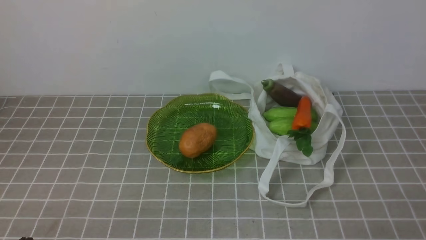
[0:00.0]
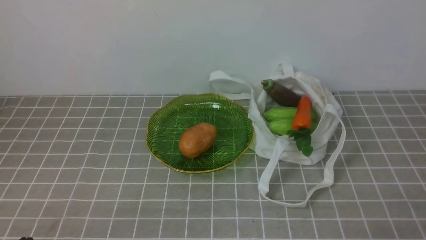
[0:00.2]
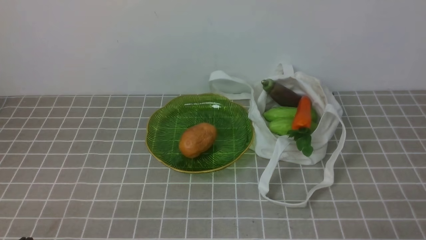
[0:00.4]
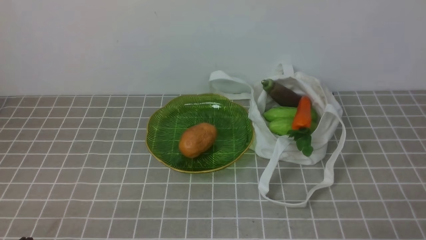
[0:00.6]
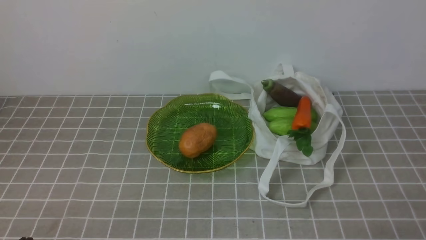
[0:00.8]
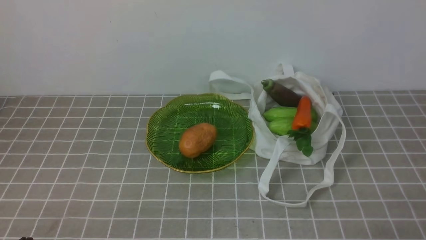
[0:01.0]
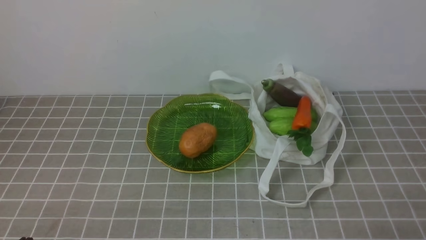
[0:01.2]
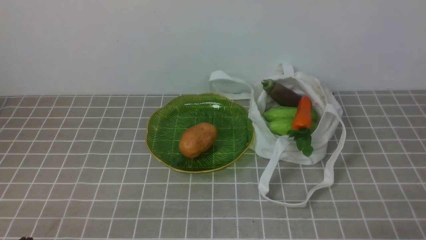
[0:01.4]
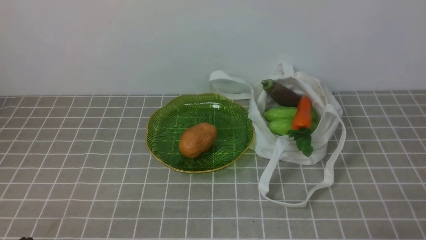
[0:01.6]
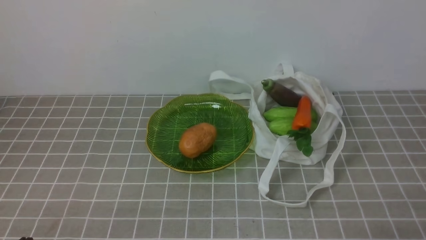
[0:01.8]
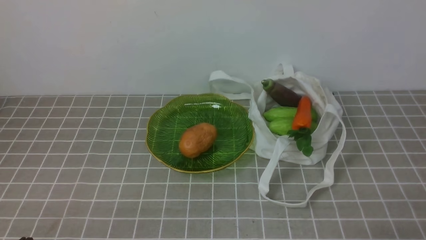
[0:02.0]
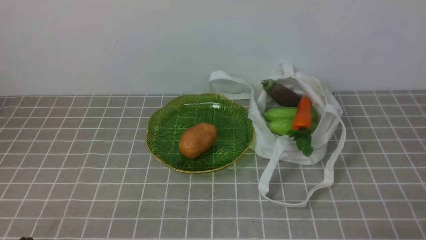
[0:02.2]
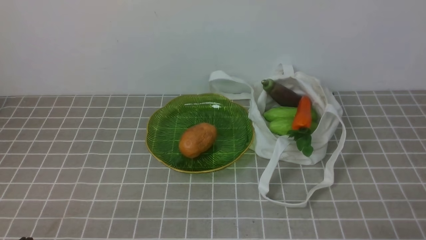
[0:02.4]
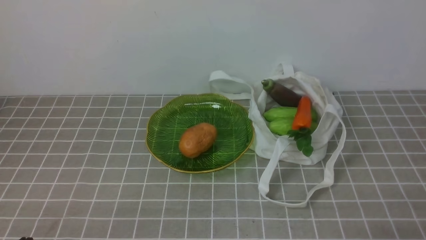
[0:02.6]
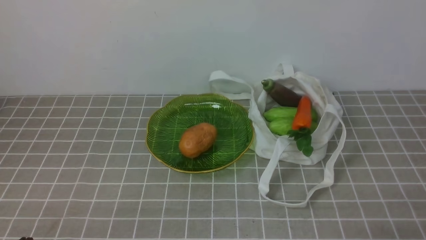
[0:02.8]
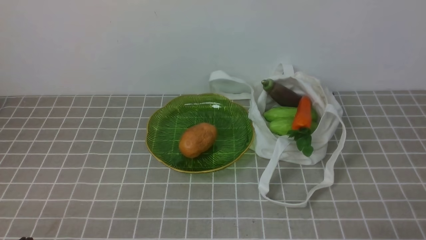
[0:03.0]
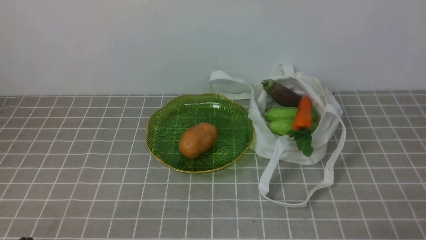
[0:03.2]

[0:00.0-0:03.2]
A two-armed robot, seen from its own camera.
Task of the whole recording: take vegetables from bag on grey coffee tablecloth place on plate.
0:01.6 to 0:03.2: Both grippers stay put.
